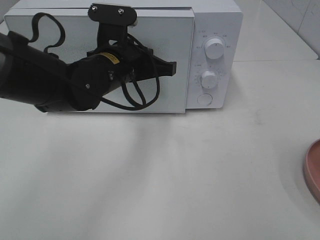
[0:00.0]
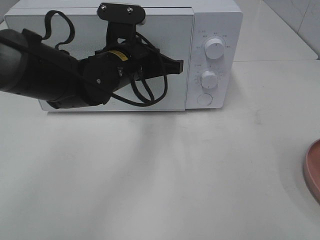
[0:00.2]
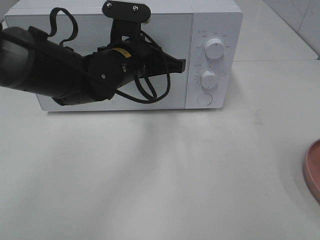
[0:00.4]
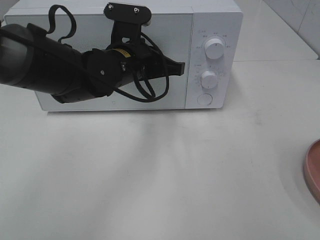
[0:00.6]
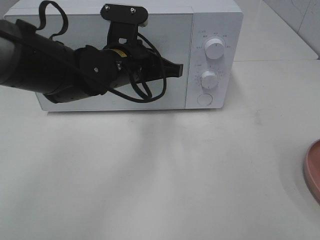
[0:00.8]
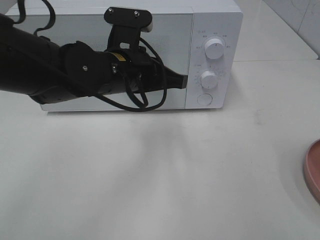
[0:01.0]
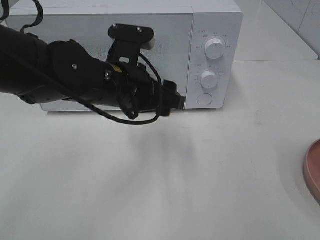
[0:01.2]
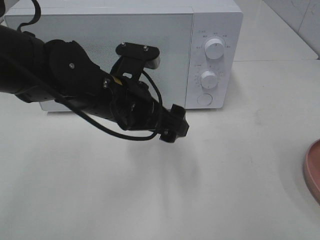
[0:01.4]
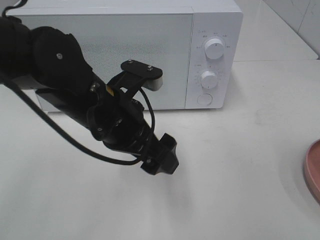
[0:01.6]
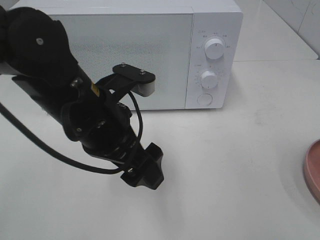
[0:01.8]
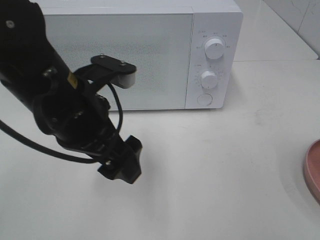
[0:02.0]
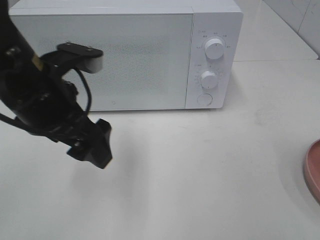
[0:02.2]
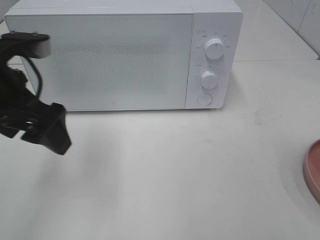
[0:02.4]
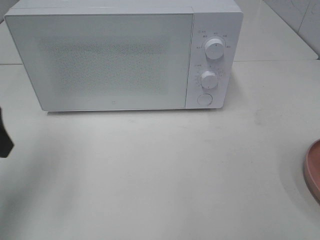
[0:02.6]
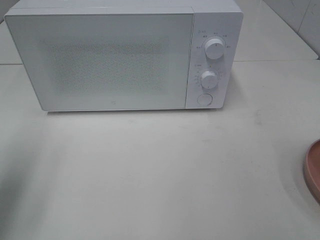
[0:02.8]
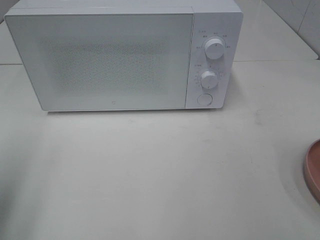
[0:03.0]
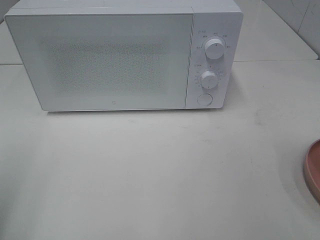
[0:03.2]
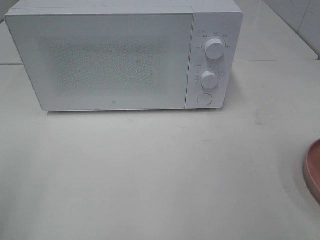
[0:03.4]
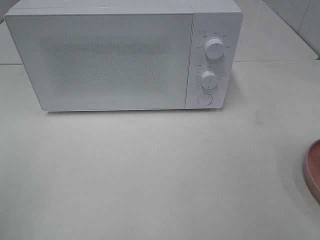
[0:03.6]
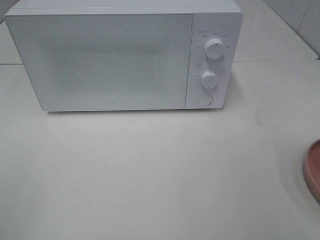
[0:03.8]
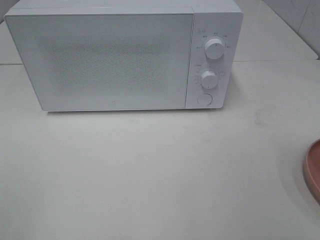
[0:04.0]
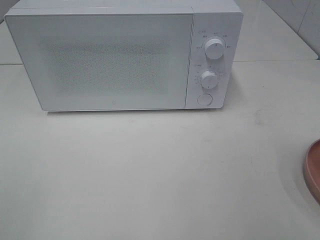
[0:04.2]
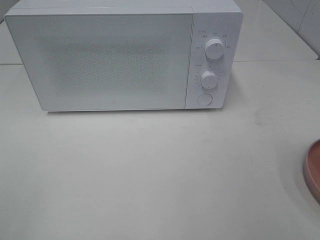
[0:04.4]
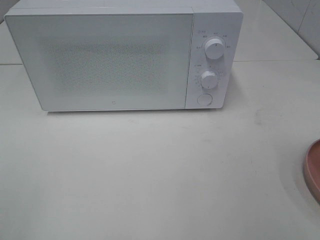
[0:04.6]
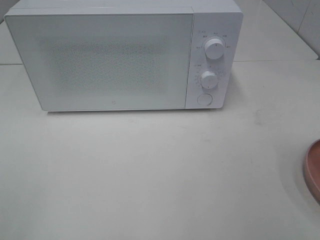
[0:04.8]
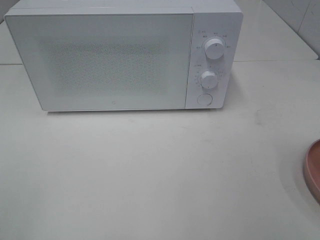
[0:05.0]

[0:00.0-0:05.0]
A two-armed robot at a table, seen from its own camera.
Task of the whole recording: Heat the burger.
0:00.0 to 0:01.6: The left gripper goes about 10 cm backward, and opens up.
0:01.6 to 0:03.4: The left gripper shifts approximately 30 cm to the left and backward.

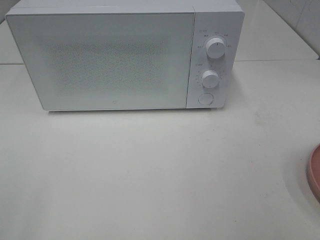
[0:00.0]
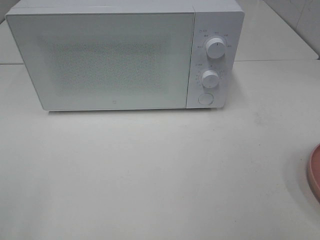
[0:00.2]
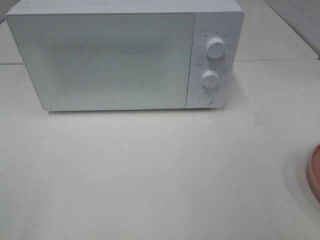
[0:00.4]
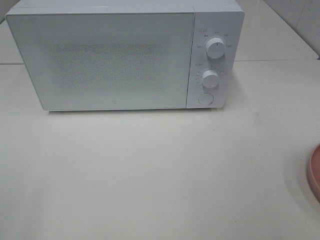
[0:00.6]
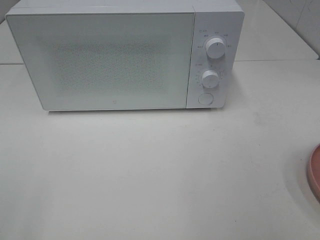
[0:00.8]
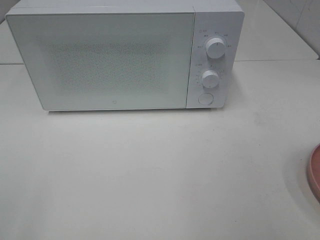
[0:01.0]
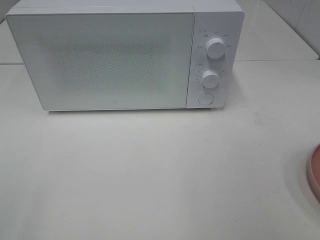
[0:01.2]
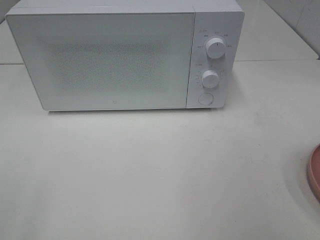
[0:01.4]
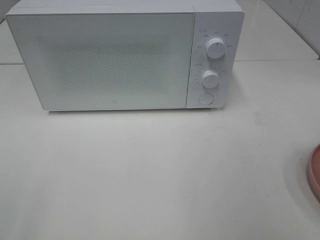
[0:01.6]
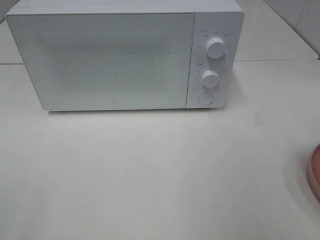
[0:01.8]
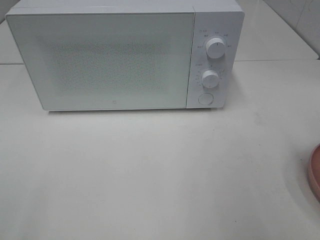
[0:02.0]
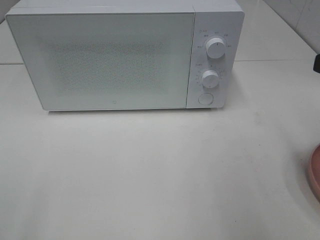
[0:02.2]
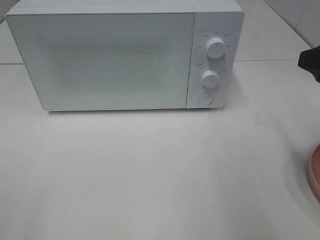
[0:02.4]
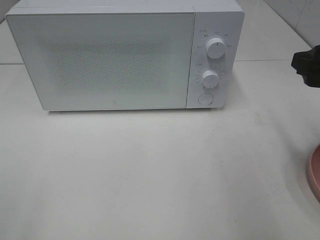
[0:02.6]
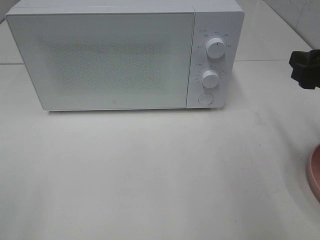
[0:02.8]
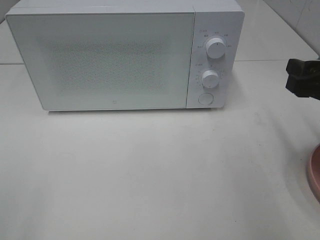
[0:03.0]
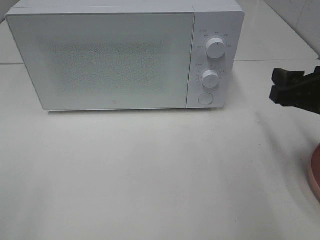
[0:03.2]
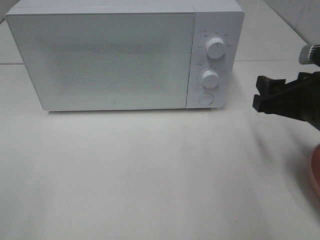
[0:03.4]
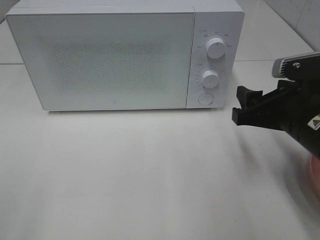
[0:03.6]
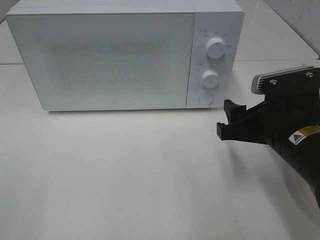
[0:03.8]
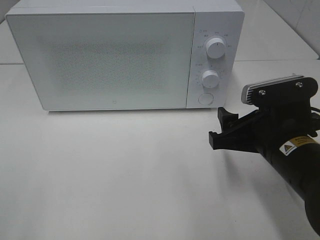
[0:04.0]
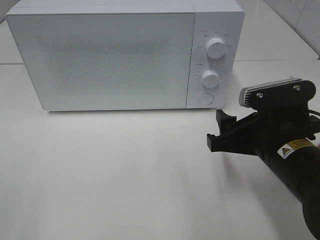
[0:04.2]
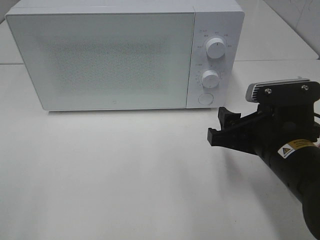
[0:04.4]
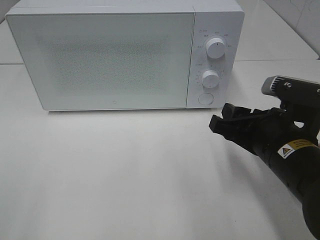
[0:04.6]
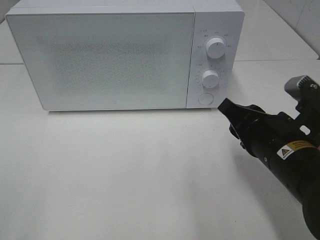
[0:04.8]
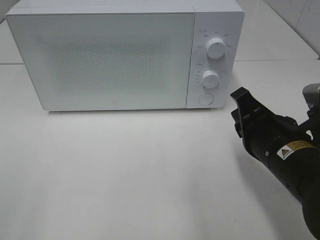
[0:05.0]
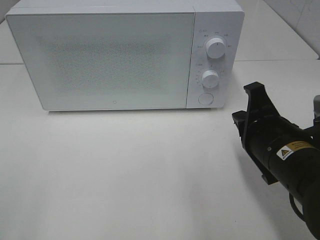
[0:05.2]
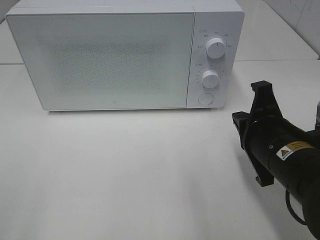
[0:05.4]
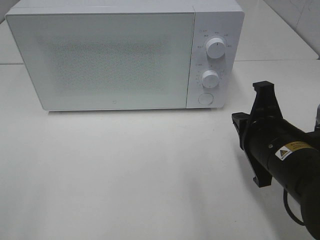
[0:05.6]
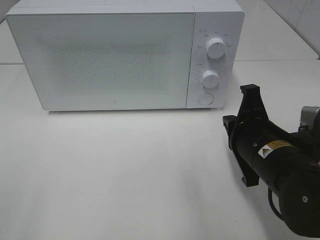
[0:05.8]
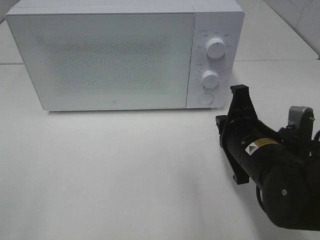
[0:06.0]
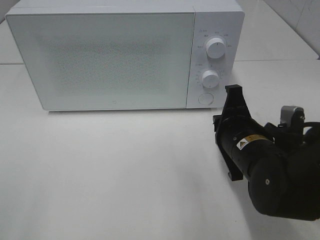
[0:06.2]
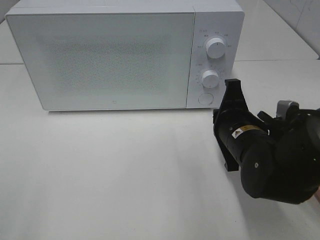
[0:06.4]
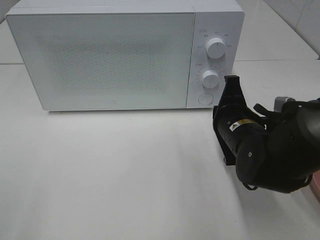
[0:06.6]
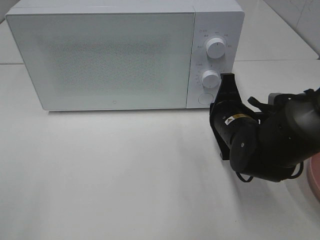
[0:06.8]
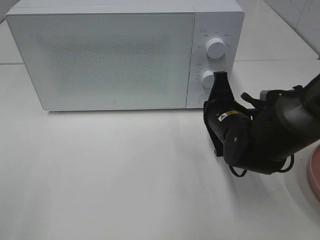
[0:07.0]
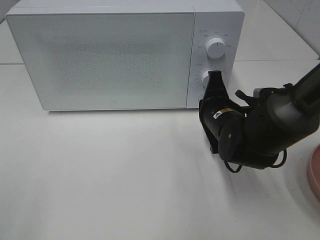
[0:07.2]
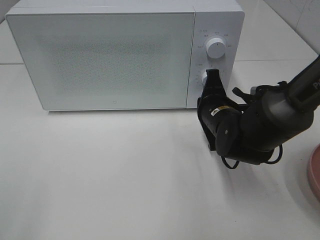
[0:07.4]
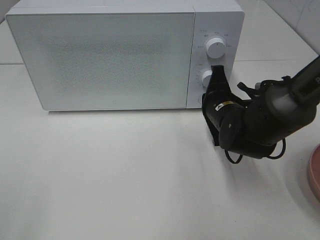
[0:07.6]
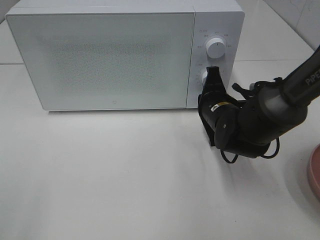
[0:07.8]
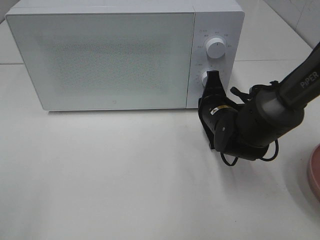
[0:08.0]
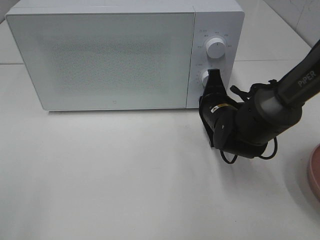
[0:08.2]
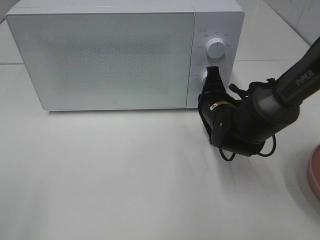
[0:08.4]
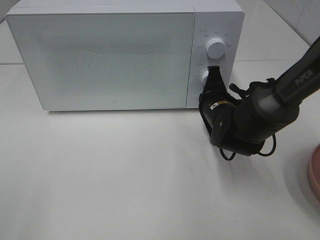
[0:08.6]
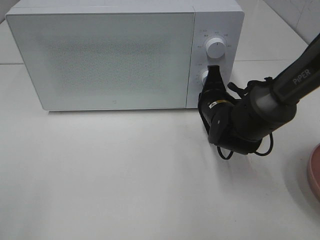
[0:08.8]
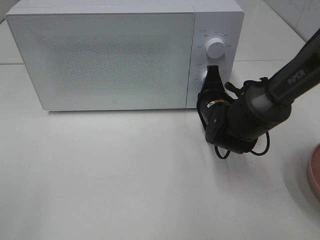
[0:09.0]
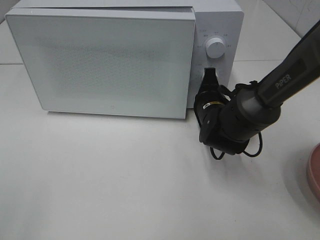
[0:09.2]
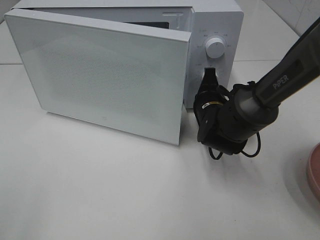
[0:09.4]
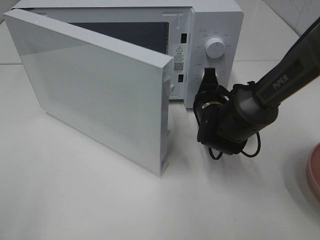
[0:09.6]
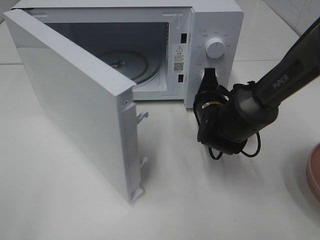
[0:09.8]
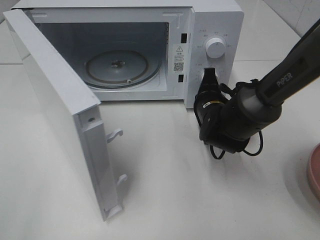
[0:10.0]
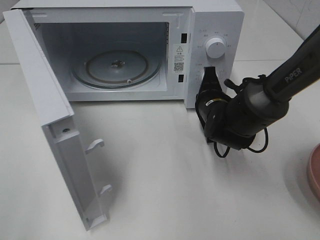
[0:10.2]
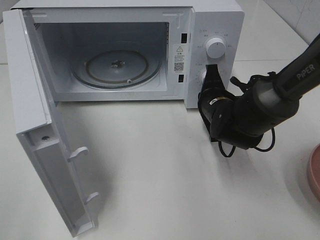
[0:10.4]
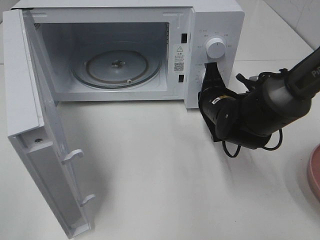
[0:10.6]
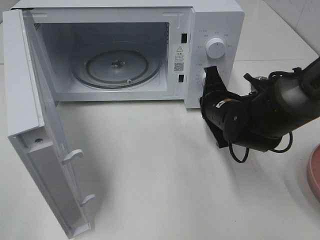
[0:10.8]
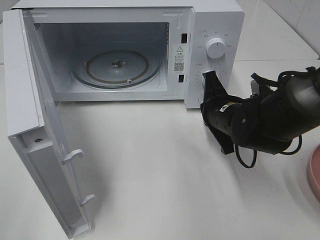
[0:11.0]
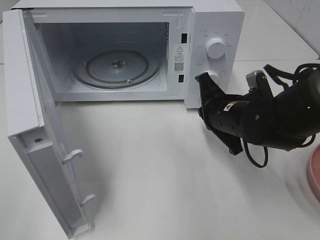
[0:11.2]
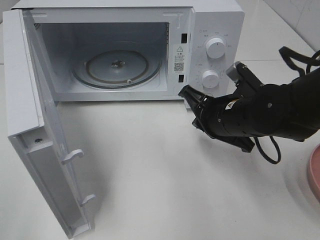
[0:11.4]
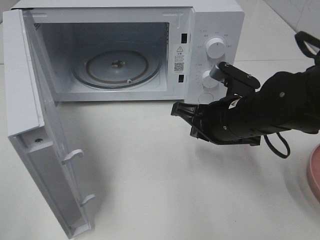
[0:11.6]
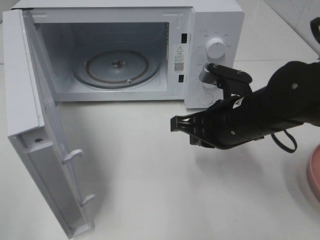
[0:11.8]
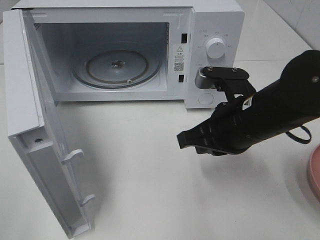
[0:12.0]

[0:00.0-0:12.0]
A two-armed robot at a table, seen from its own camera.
Task of the whole recording: Heat the burger.
Step, 0:00.0 to 0:10.6: Right hand: press the switch.
0:01.6 to 0:03.0: The right gripper moves forward and downward, some 15 cm.
0:03.0 to 0:04.4: The right gripper travels to the left and downward by approximately 10 cm.
0:04.4 to 0:06.0: The right gripper closes its fingers.
0:06.0 to 0:07.6: The right gripper travels forward by about 10 cm.
0:07.6 to 0:09.0: The grippers stay close to where they were, moving slightly.
0:10.4 to 0:12.0: The right gripper moves backward and upward, approximately 15 cm.

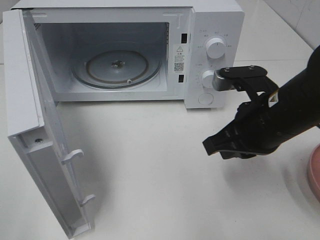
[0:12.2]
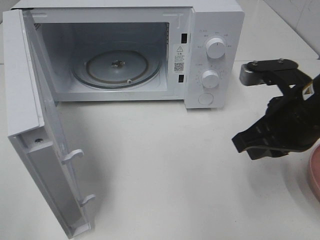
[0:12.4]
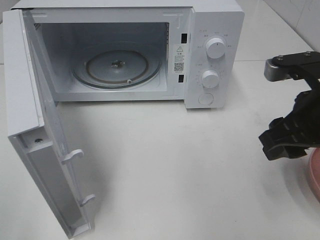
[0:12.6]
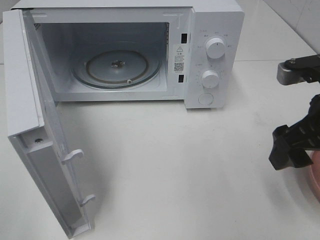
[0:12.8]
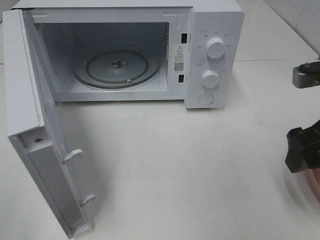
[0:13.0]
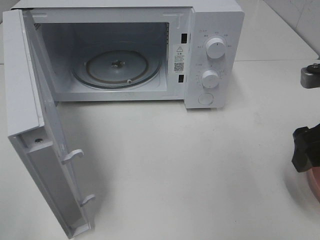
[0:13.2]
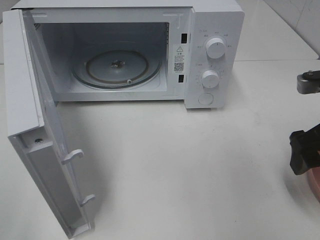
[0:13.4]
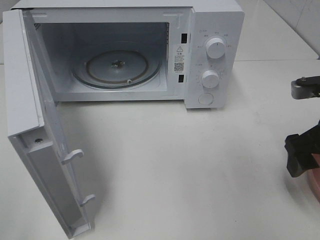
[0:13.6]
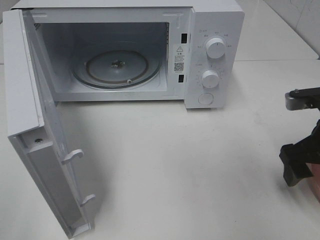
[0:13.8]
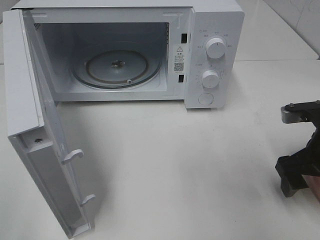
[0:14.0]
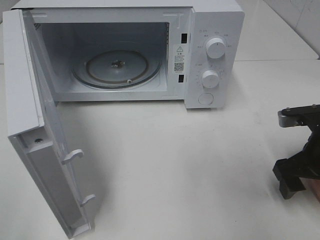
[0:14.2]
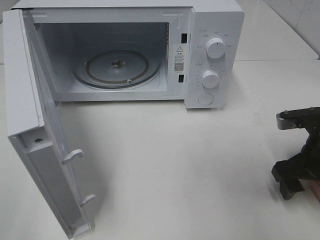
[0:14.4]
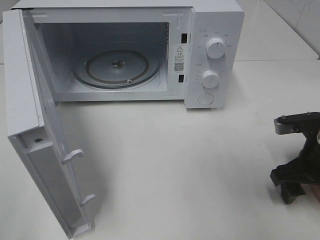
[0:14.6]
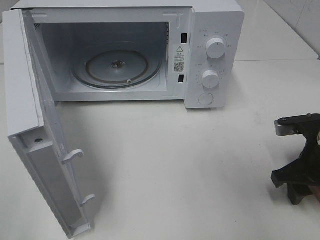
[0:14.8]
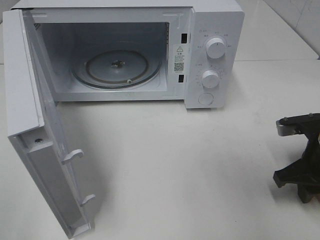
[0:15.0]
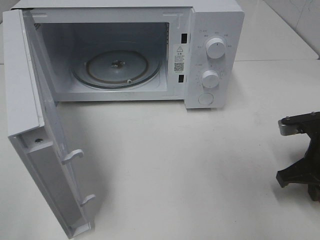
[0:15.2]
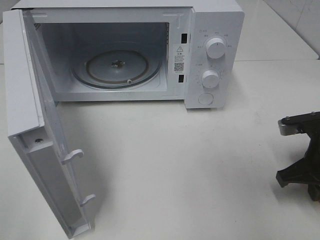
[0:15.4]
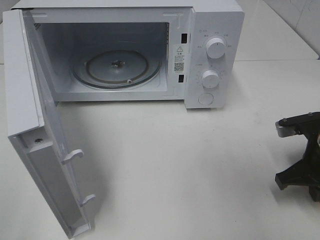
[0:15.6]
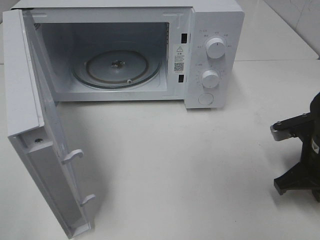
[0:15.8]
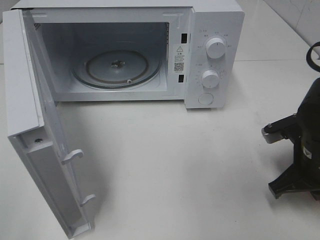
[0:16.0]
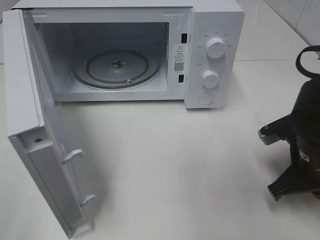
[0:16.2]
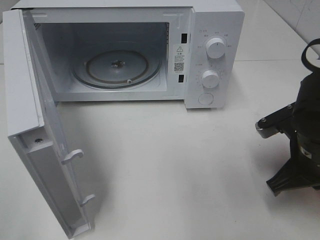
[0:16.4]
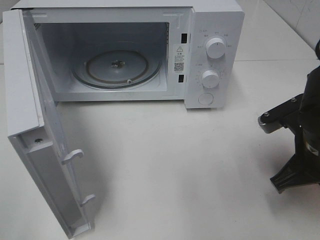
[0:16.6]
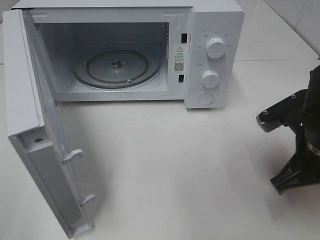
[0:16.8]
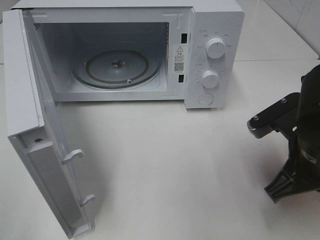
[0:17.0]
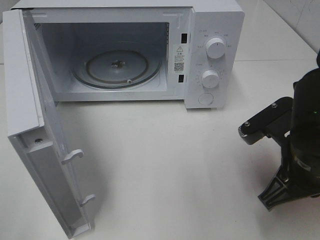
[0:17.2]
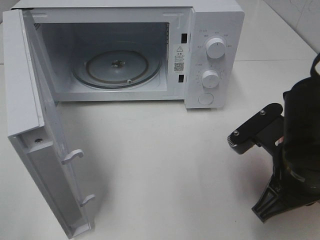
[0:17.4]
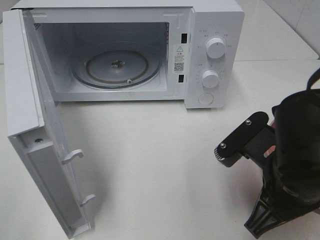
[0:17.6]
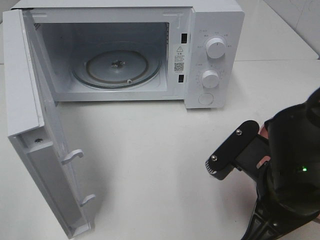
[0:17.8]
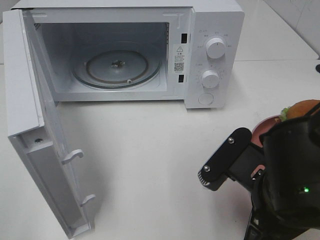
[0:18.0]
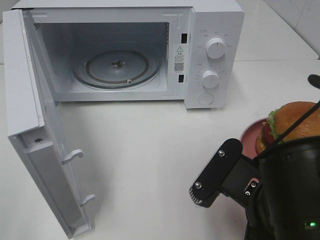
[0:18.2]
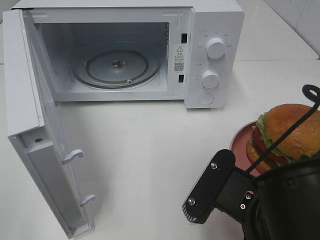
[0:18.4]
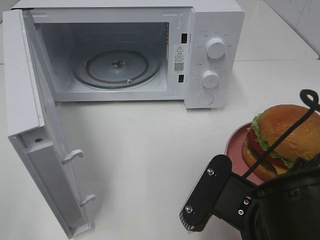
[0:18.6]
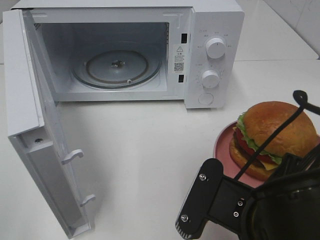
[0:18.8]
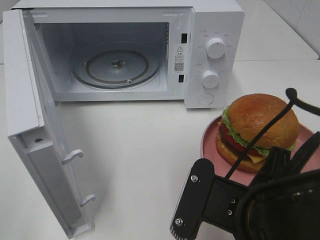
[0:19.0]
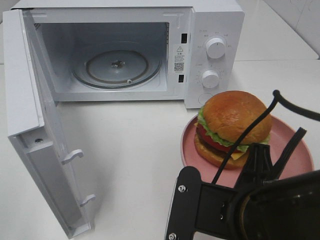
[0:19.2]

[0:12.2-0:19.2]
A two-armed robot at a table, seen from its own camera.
Task of the whole recording: Heat the burger.
Step, 0:12.2 to 0:15.6: Right hand: grab the plate with the hamburger.
0:12.2 to 0:13.6: The right gripper travels to the right by about 10 cm, and opens up.
0:13.6 to 0:15.0: The right gripper heads downward, covering some 5 cm, and closes up.
0:15.0 to 0:16.4: The right gripper travels to the left by approximately 5 cm, and closes.
0:16.4 to 0:17.8: The right gripper shifts some 10 cm to the left and backward.
0:17.8 to 0:19.2: The right gripper ends up roughly 5 cm from where it was.
